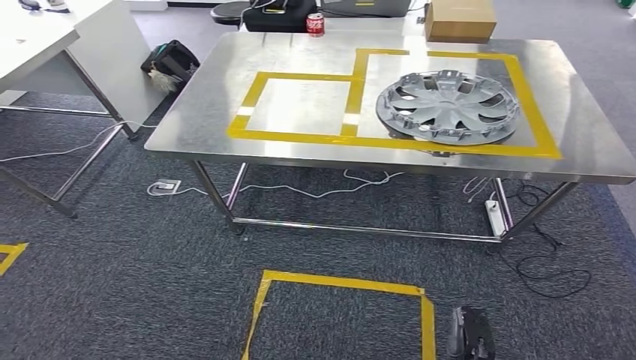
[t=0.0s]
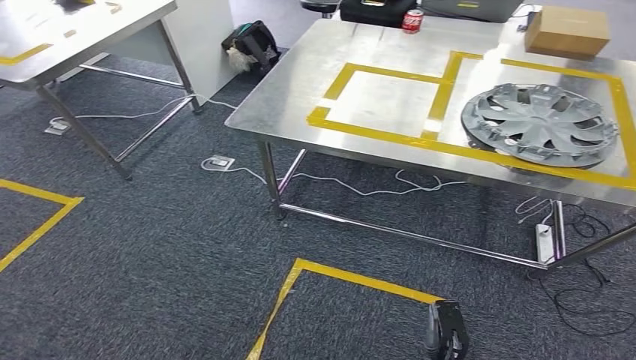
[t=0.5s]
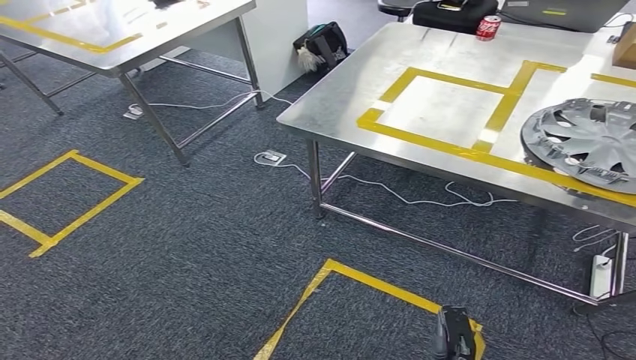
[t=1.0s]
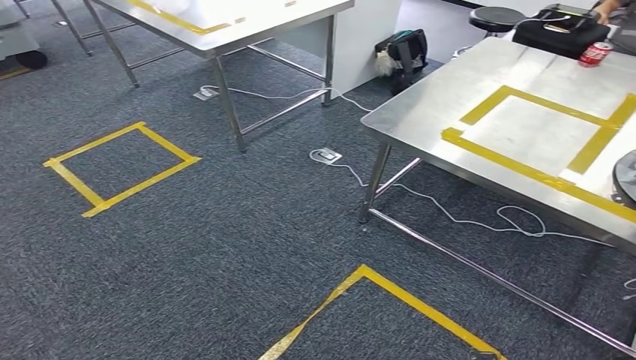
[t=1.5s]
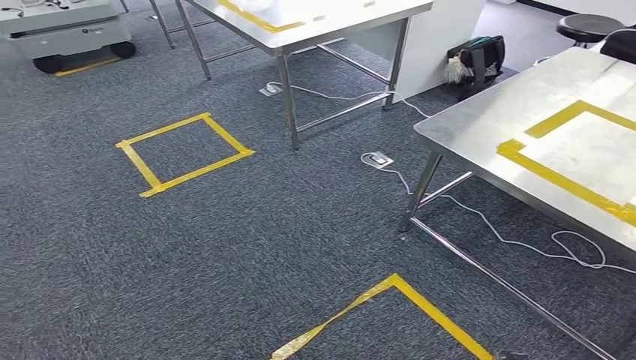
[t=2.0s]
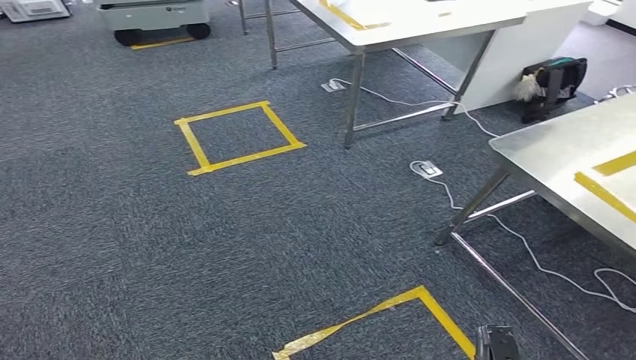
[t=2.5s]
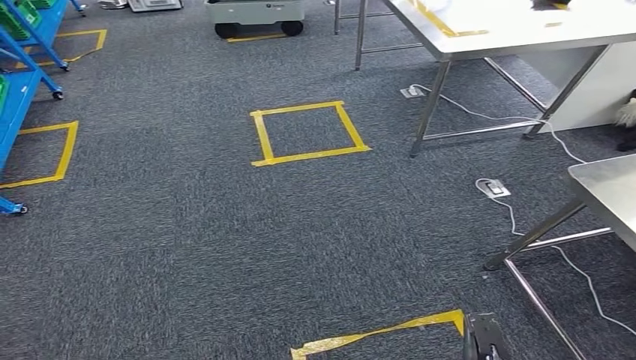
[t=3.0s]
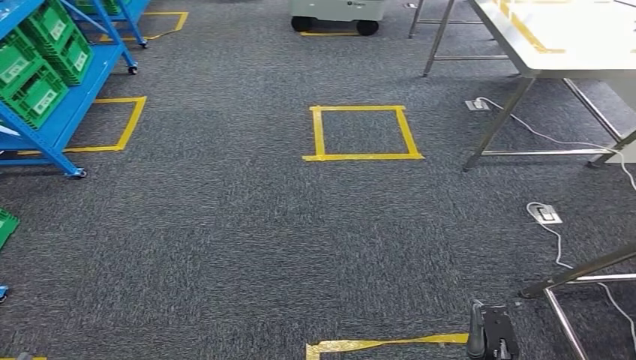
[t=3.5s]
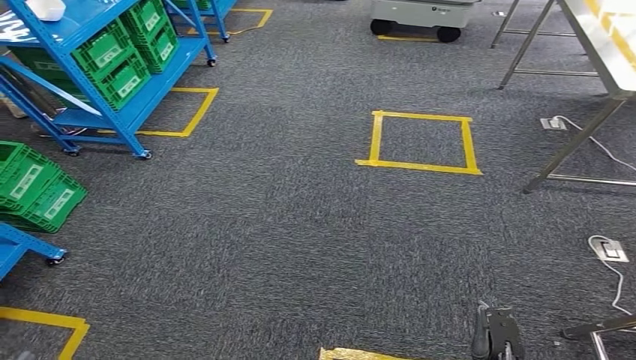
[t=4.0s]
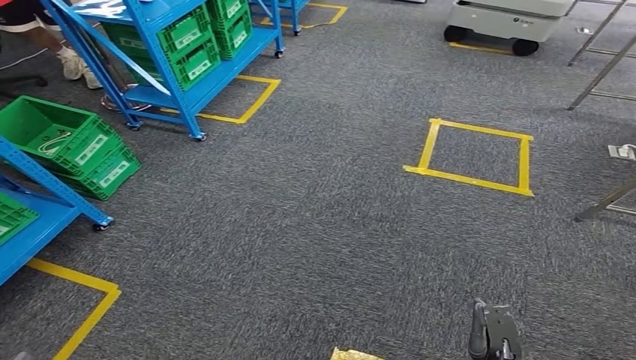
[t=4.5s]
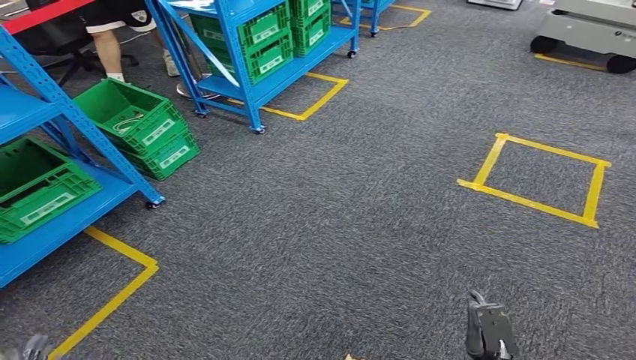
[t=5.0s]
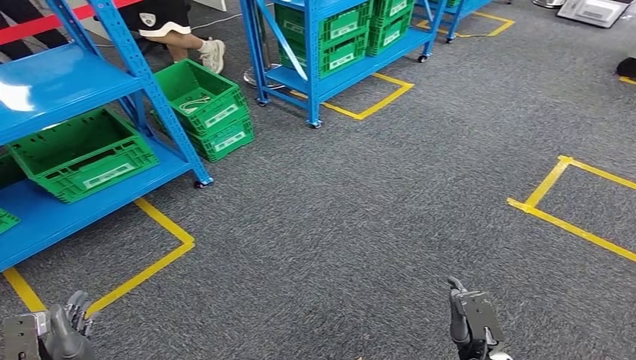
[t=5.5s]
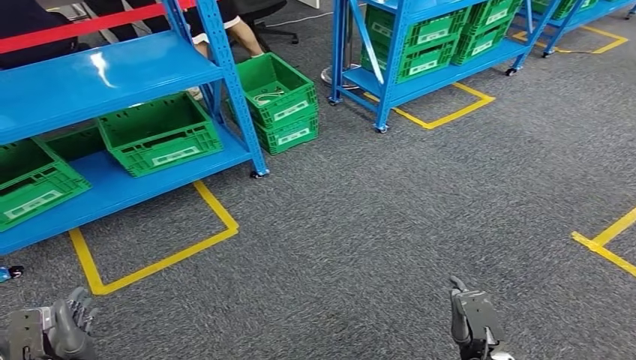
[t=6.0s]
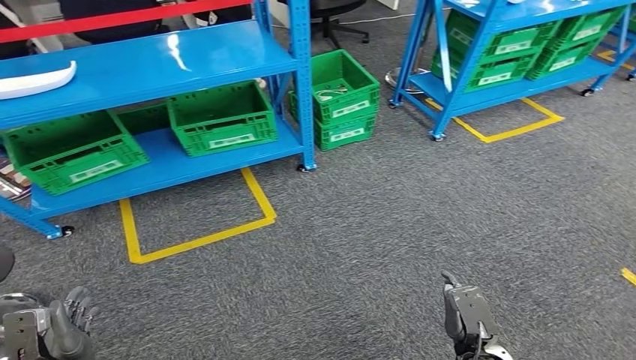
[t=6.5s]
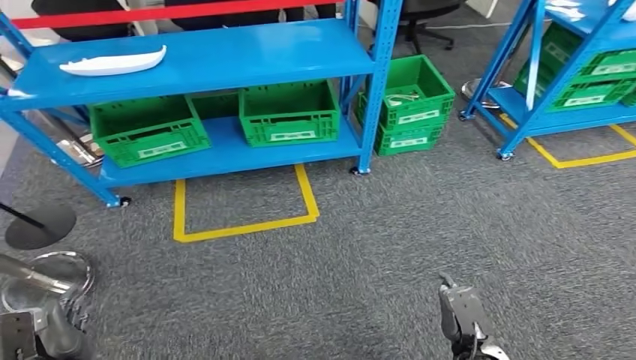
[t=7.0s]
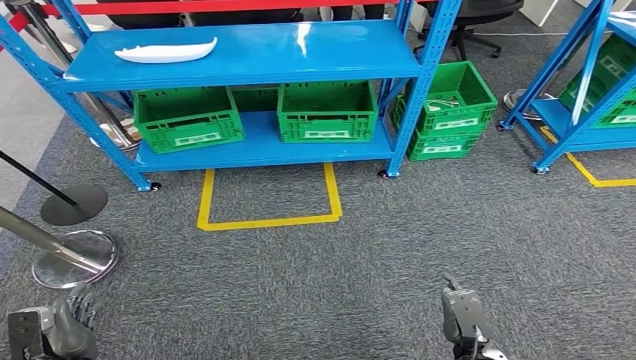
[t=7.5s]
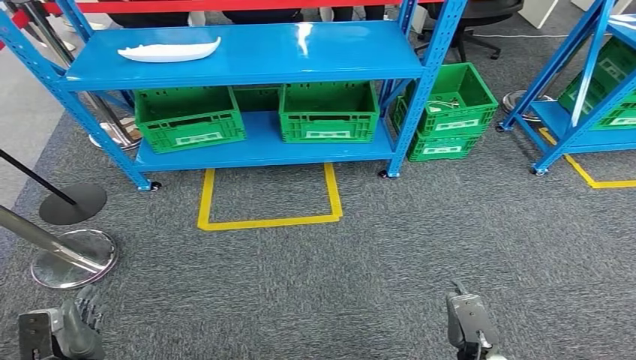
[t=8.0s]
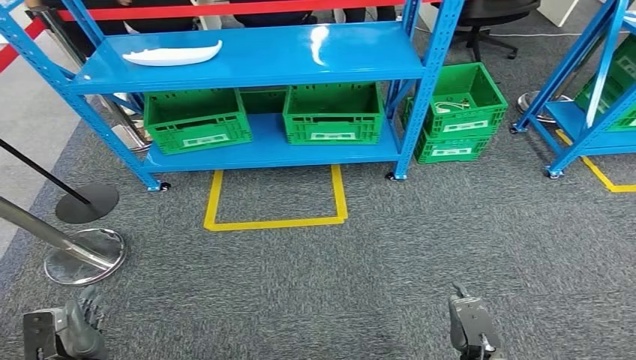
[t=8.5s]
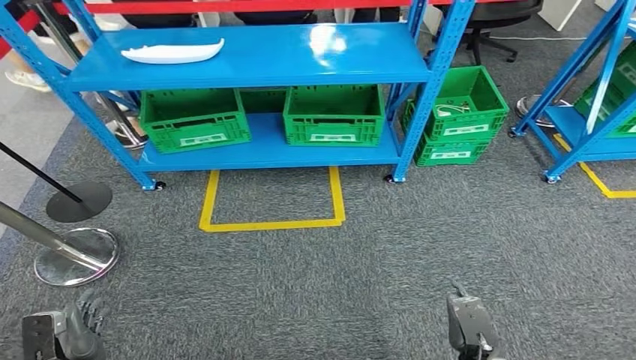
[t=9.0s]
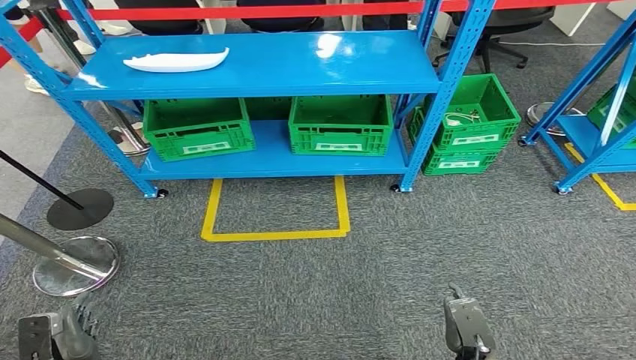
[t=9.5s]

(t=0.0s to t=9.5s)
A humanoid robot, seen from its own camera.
Step, t=0.0s - t=9.5s: Return to the initial position at the workbench.

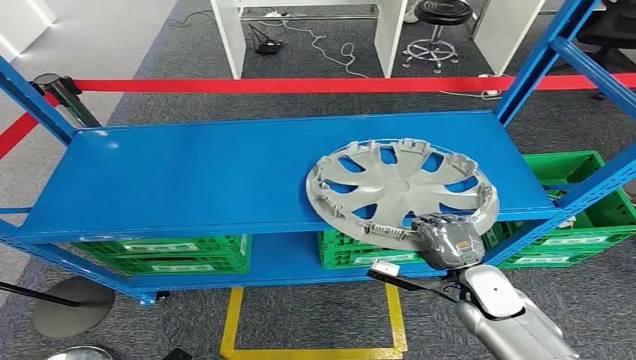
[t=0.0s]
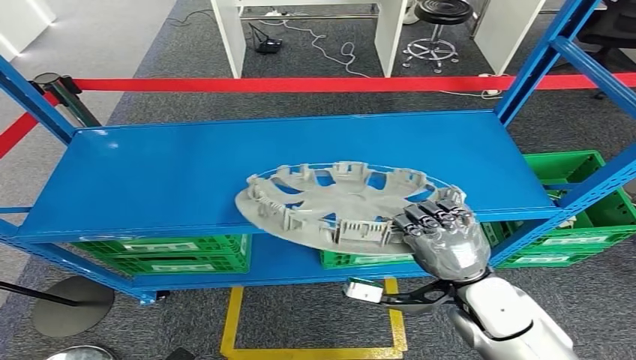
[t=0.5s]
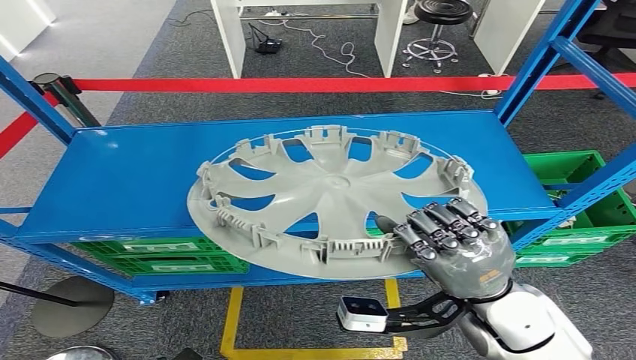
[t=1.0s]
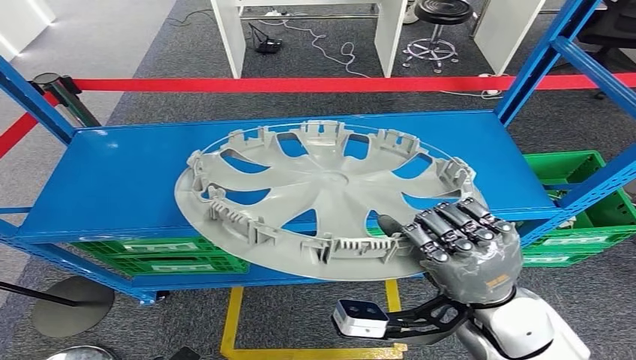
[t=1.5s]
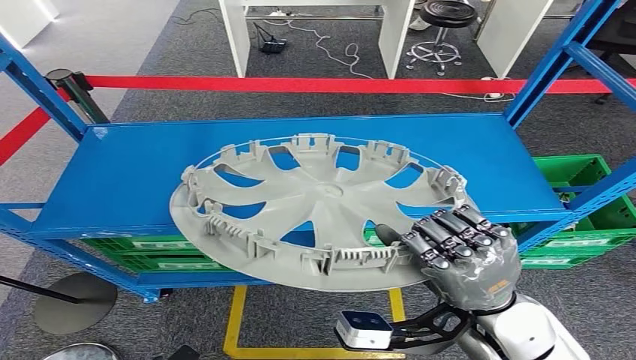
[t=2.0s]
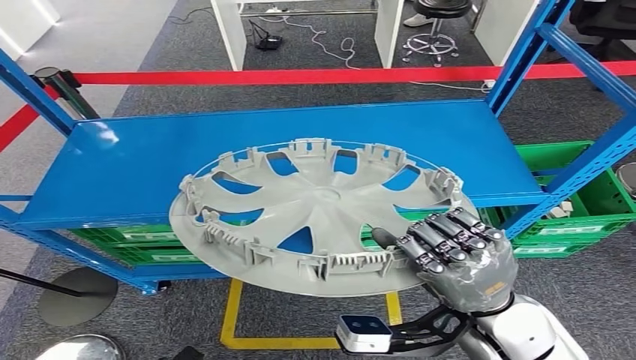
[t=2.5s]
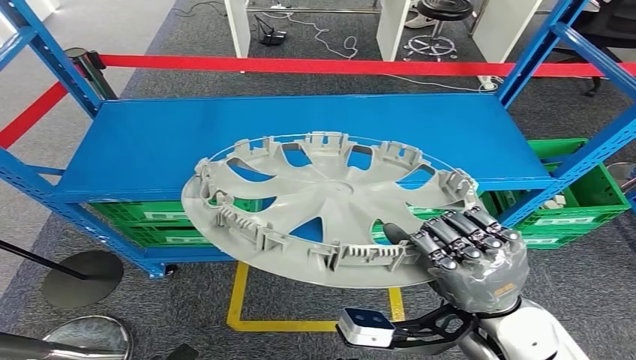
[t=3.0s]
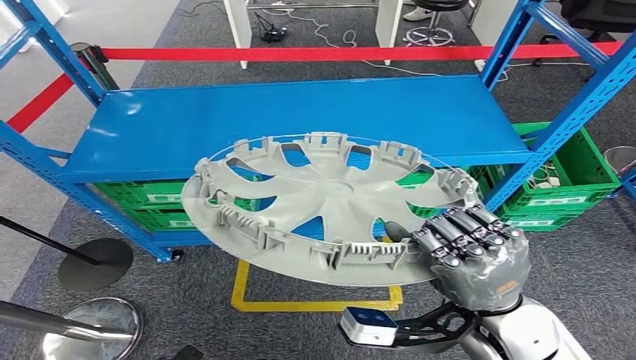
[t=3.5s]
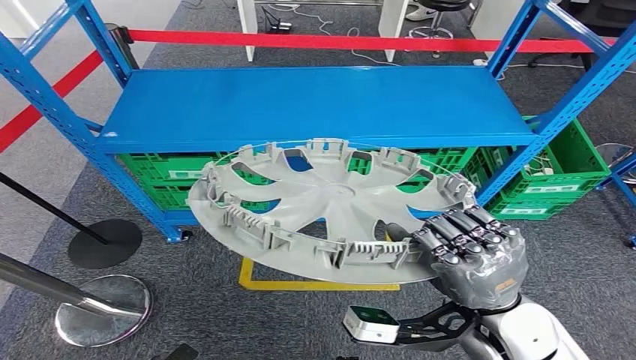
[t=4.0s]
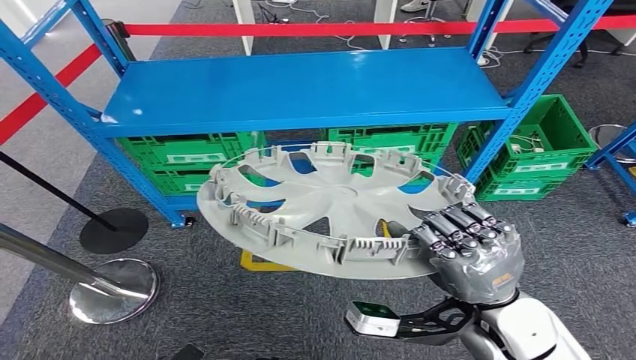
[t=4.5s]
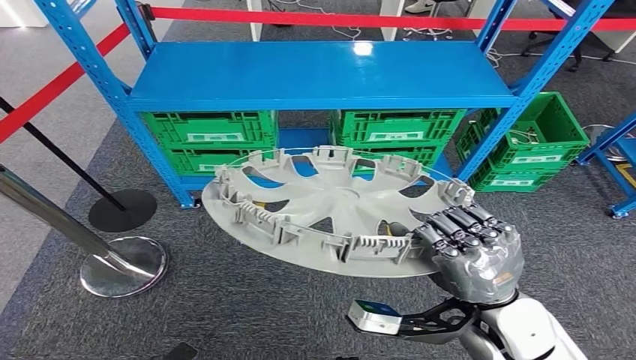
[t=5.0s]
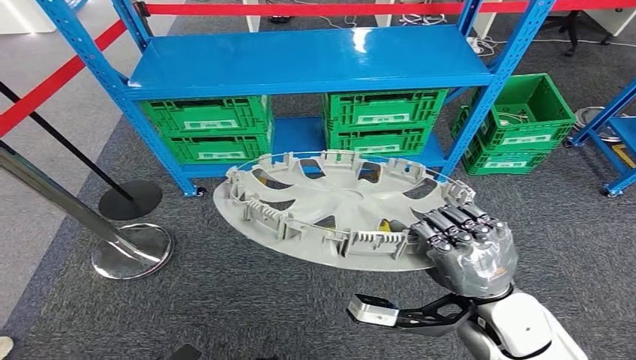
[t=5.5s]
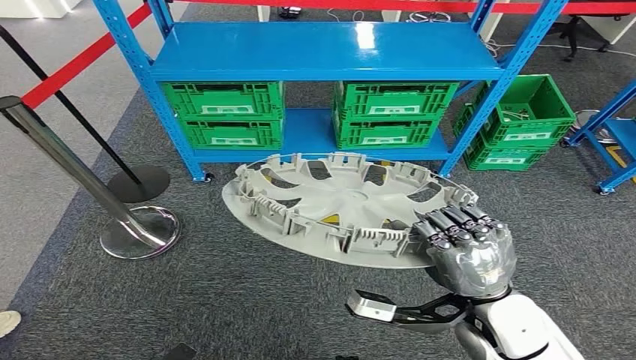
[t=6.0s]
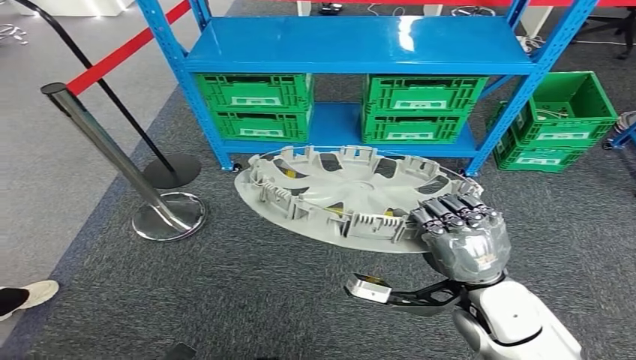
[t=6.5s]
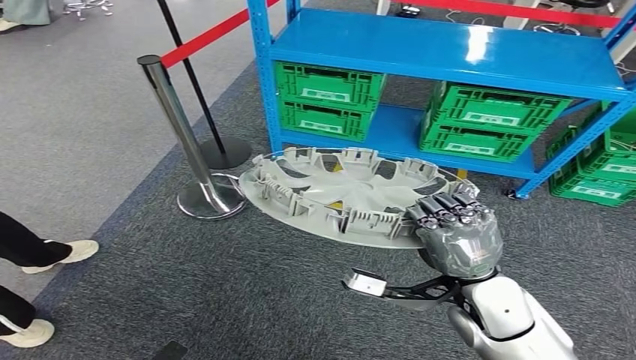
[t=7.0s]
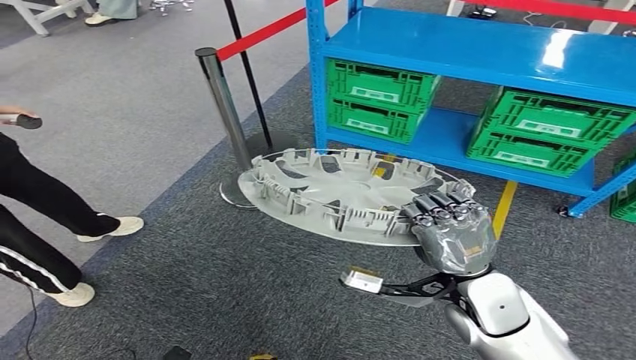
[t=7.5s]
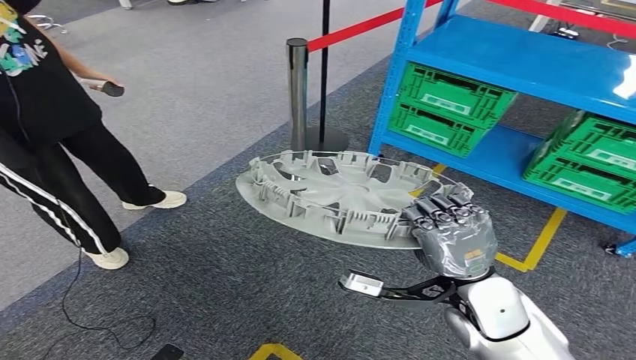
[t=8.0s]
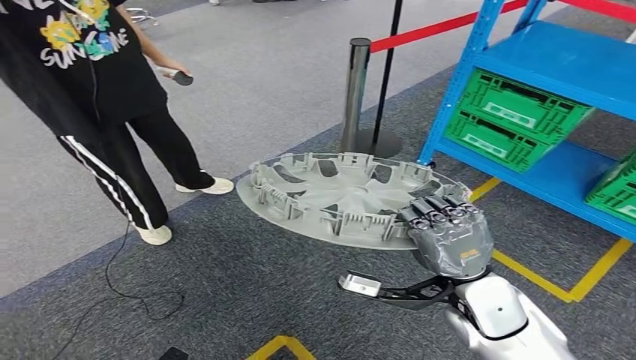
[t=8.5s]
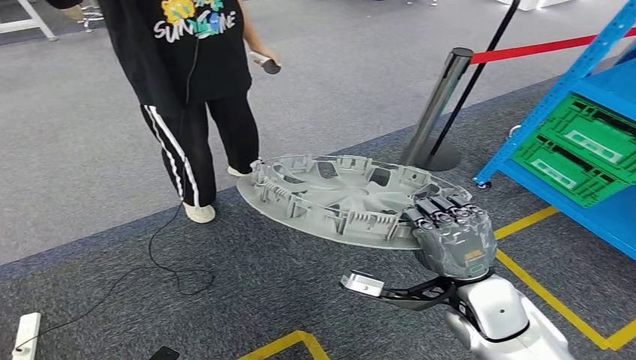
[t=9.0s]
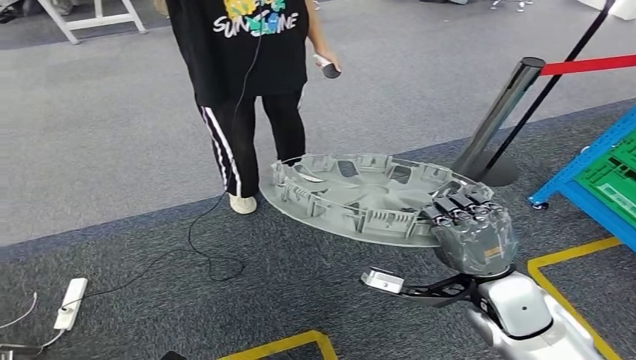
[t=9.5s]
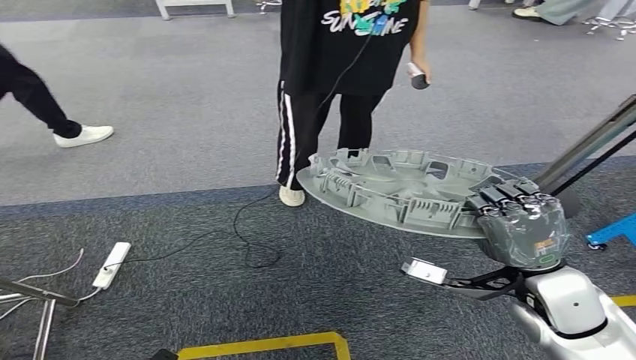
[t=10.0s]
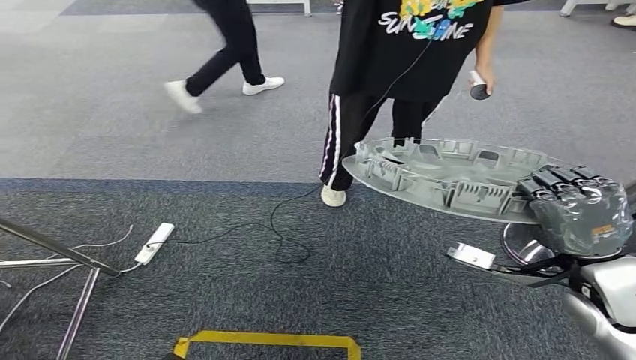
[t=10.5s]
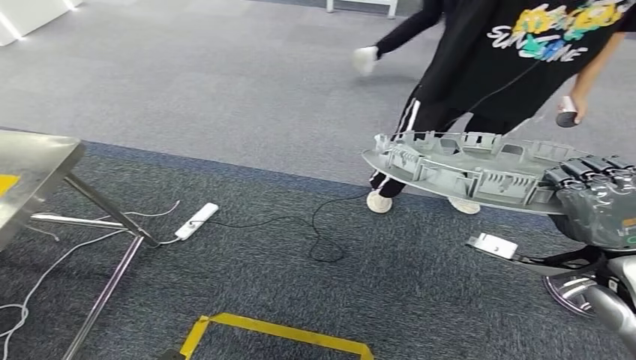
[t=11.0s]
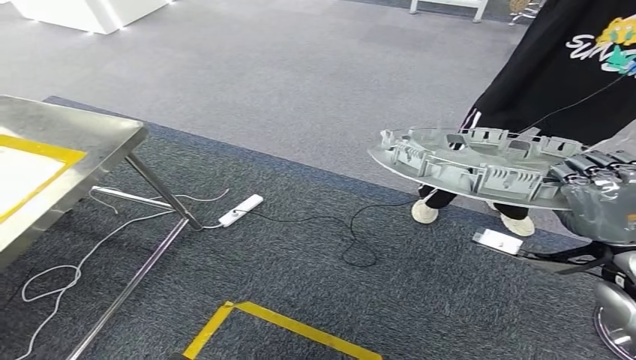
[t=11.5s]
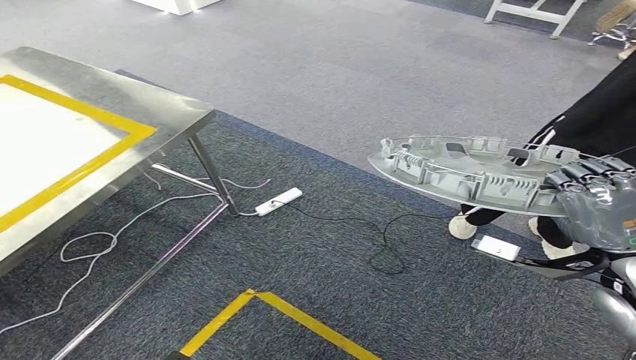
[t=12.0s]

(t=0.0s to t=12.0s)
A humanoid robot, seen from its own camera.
Step, t=0.0s - t=3.5s: Pick up the small component from the shelf.
